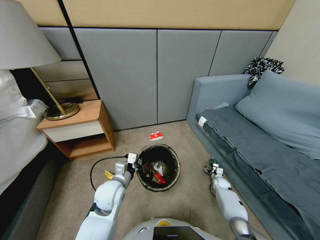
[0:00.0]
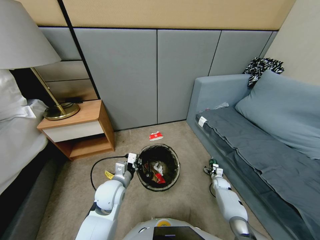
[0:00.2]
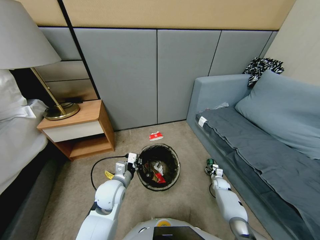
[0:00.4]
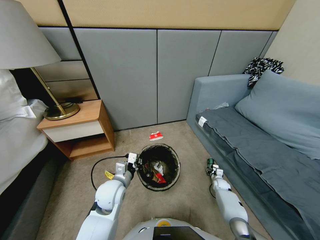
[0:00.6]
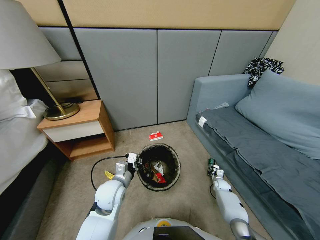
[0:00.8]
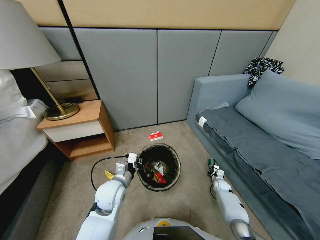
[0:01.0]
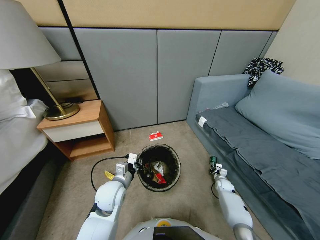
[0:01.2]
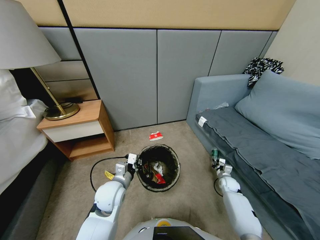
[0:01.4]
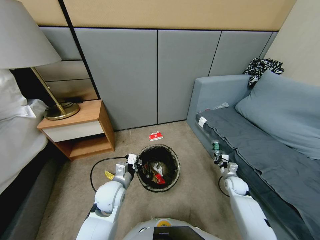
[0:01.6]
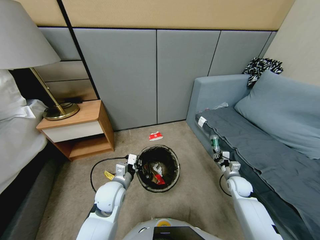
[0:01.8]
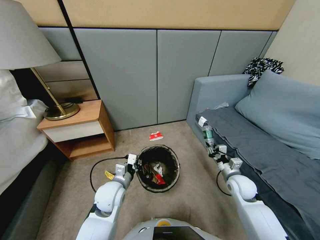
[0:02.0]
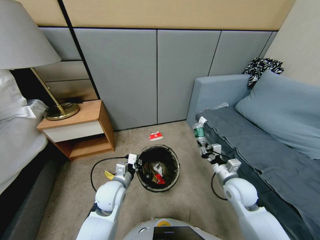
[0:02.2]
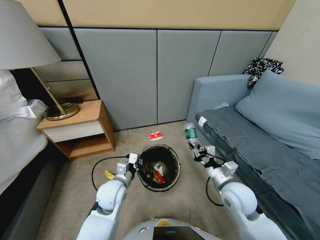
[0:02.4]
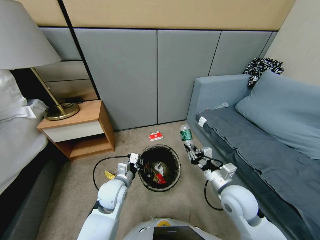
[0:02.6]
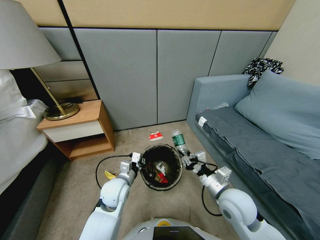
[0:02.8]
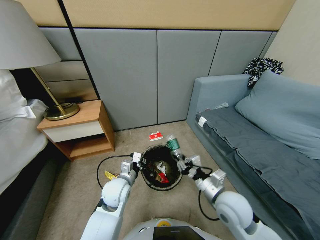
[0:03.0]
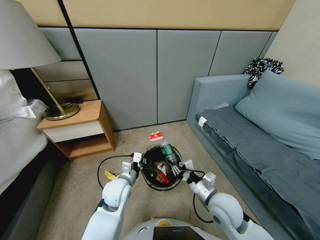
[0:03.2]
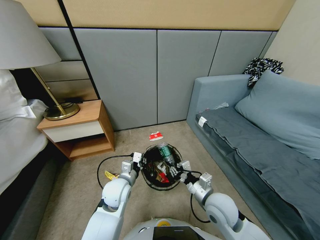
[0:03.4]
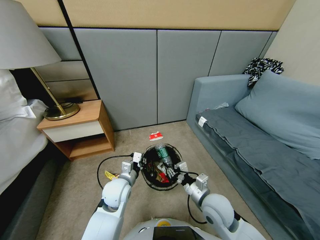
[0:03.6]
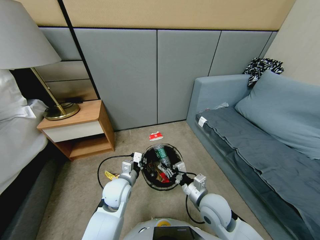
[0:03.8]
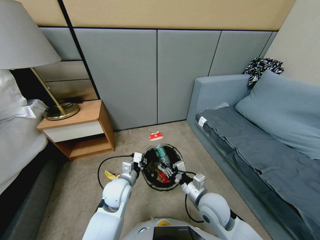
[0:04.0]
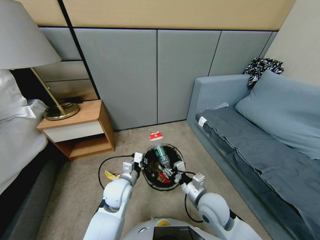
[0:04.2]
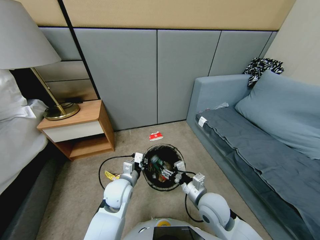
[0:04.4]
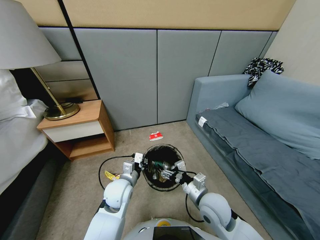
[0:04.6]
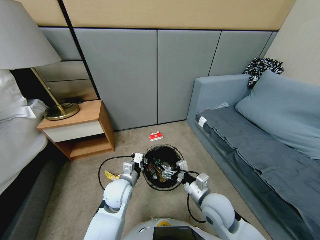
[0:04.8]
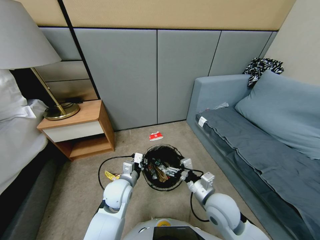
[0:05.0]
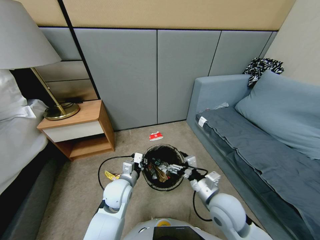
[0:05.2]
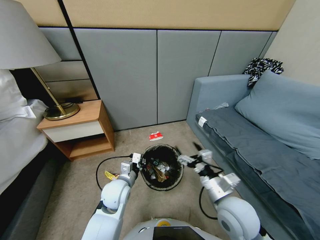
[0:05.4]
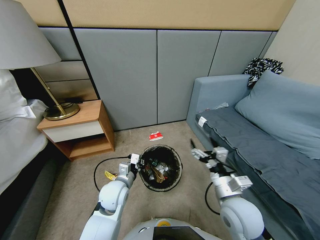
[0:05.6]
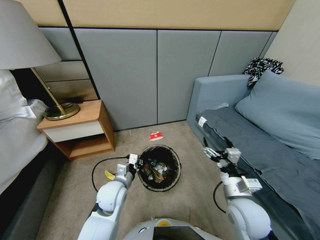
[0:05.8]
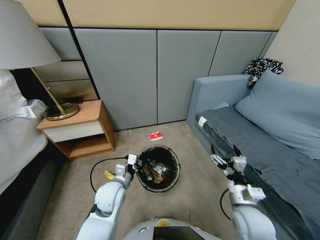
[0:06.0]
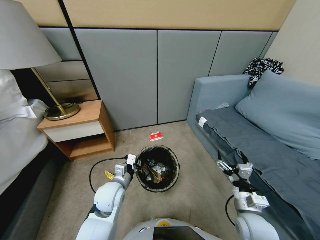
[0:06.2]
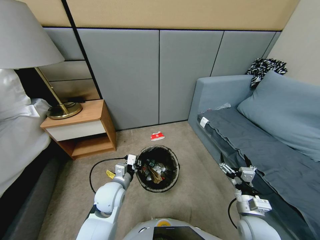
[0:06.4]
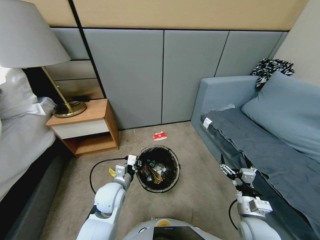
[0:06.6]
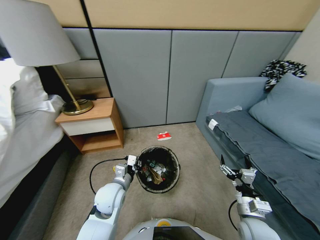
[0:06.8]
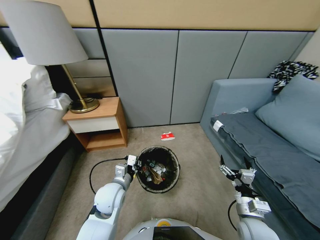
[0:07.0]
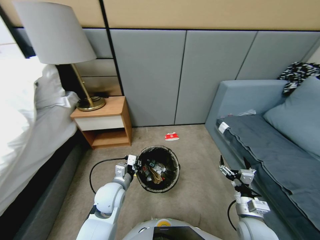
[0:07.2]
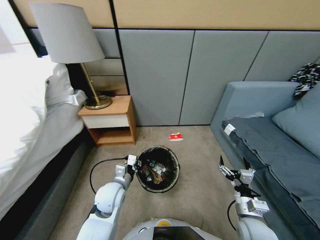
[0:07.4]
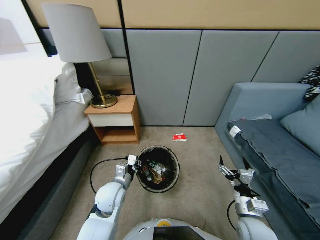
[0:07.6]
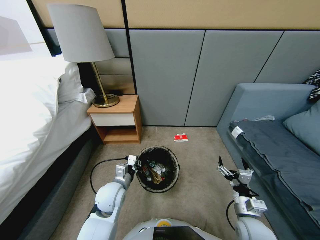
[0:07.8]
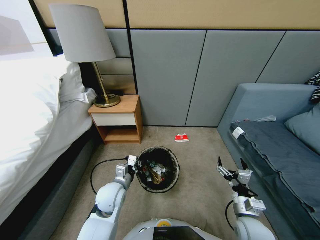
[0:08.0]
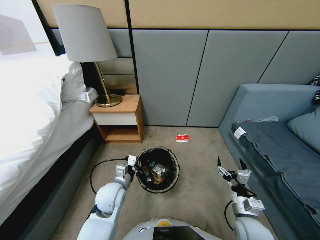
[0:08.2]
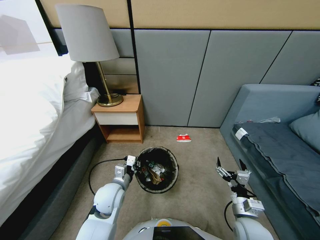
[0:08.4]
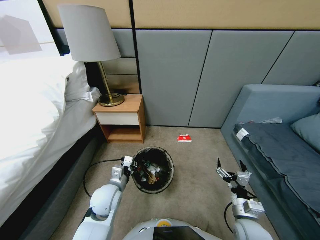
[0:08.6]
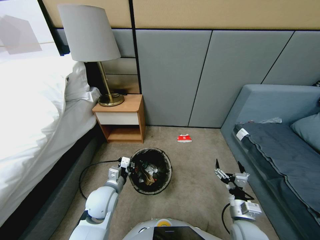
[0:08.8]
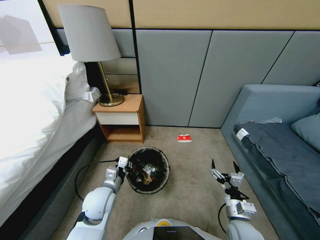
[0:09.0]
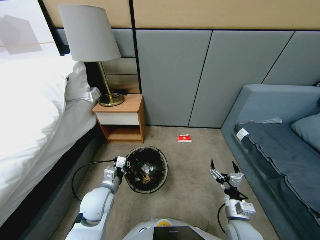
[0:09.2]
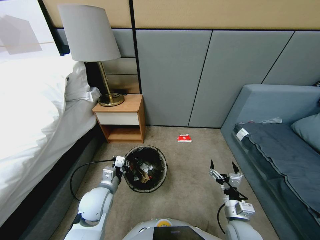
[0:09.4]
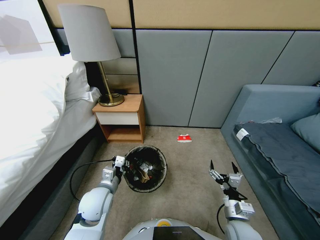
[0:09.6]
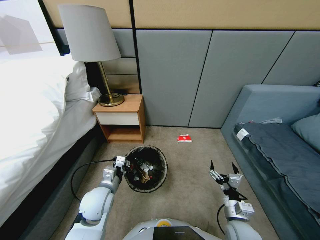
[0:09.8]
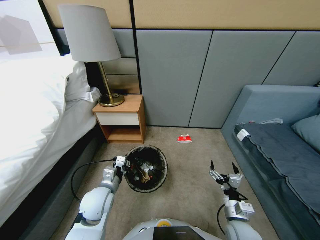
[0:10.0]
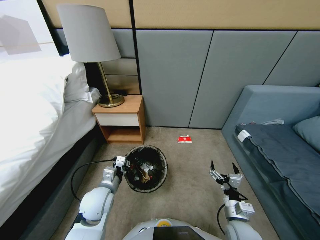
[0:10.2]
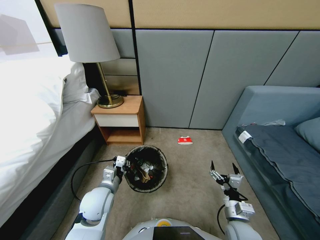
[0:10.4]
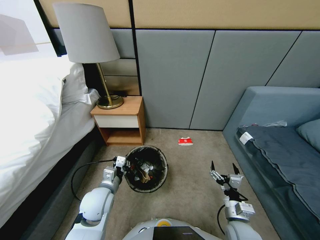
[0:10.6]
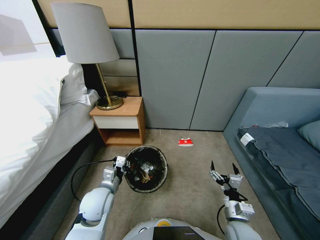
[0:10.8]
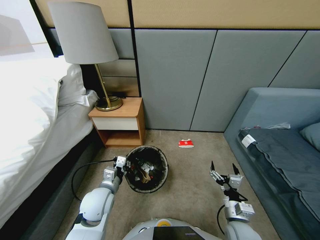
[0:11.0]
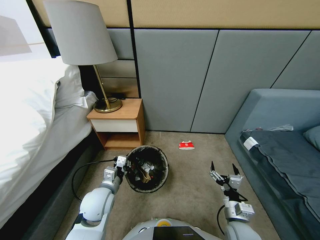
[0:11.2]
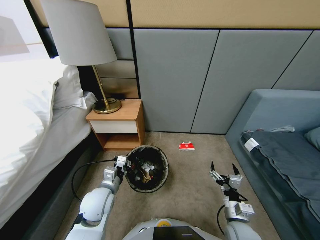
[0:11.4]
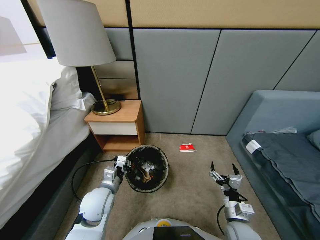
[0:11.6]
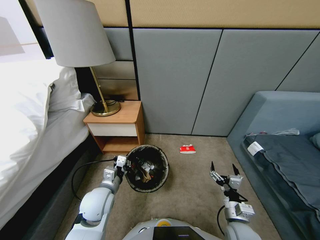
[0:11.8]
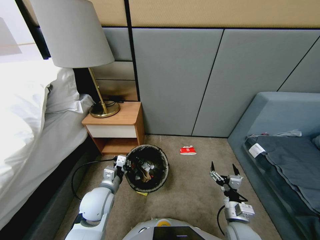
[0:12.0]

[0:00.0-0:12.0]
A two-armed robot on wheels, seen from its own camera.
Task of the whole recording: Pick up the trash bin, then pick up the garbage from the floor and place it into the trash bin.
0:00.0 to 0:01.6: The right gripper is displaced upward by approximately 10 cm, and closes its fingers.
0:01.6 to 0:03.0: The right gripper shifts about 30 cm upward, to the left and backward.
0:03.0 to 0:04.4: The right gripper opens its fingers.
0:04.4 to 0:06.0: The right gripper is displaced to the right and backward by roughly 10 cm.
0:09.0 to 0:10.4: Both grippers stay put.

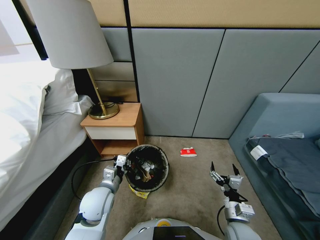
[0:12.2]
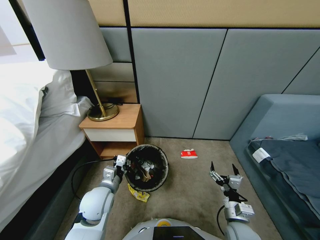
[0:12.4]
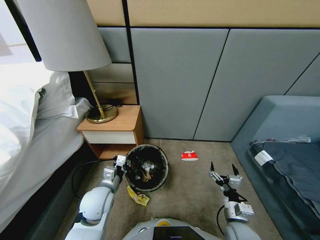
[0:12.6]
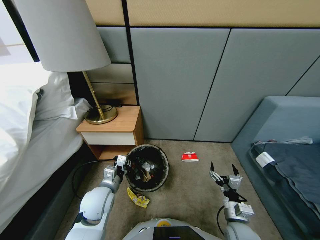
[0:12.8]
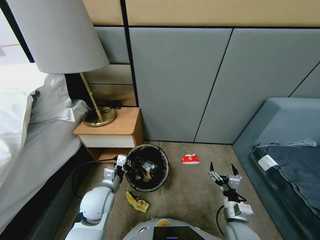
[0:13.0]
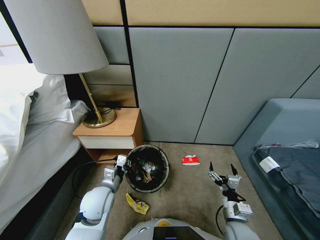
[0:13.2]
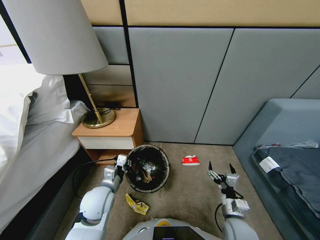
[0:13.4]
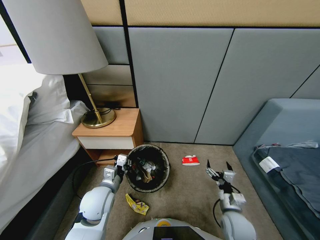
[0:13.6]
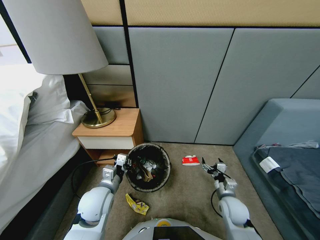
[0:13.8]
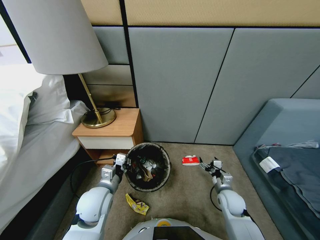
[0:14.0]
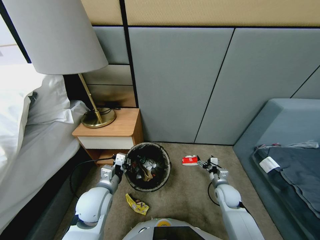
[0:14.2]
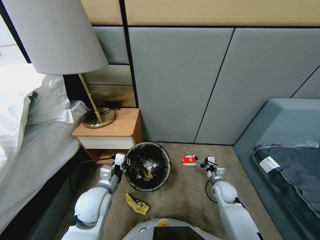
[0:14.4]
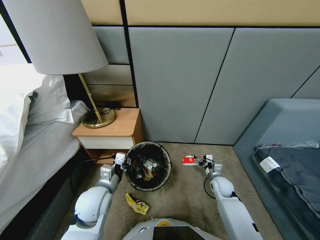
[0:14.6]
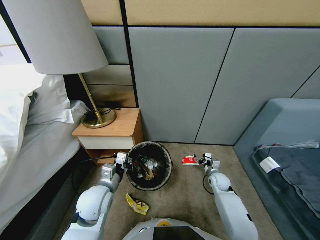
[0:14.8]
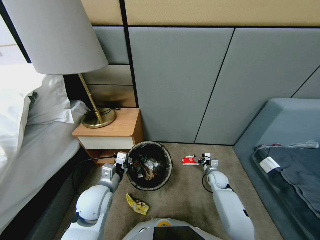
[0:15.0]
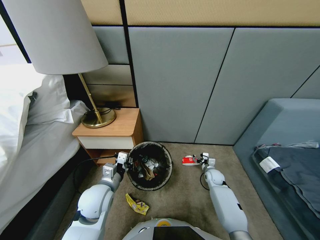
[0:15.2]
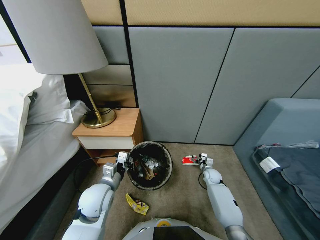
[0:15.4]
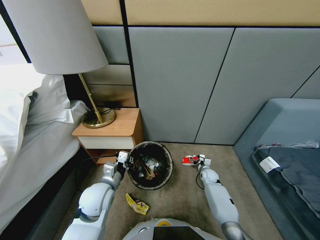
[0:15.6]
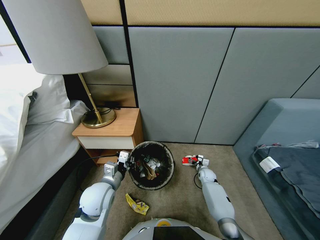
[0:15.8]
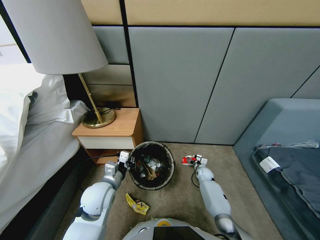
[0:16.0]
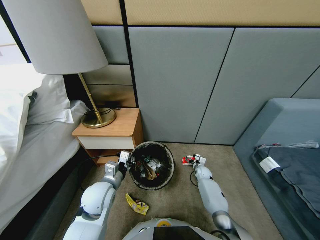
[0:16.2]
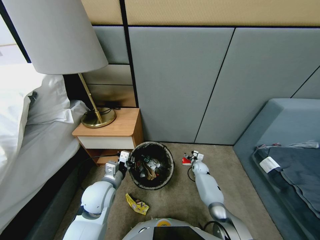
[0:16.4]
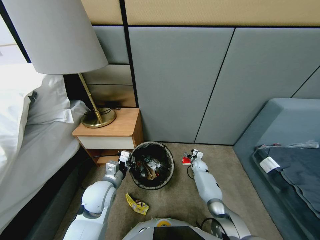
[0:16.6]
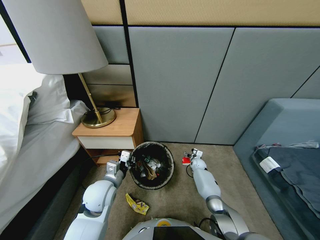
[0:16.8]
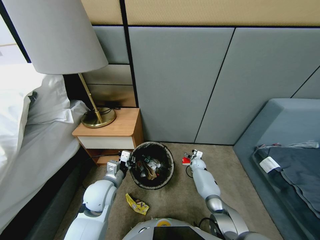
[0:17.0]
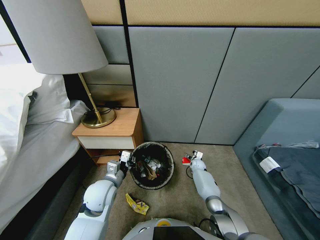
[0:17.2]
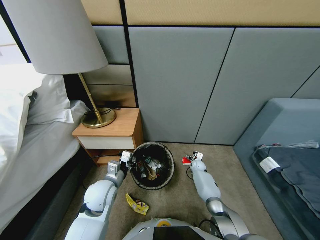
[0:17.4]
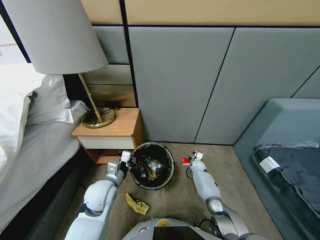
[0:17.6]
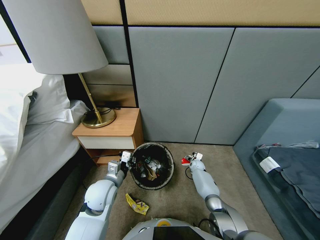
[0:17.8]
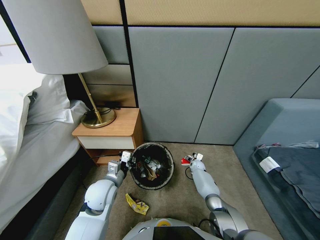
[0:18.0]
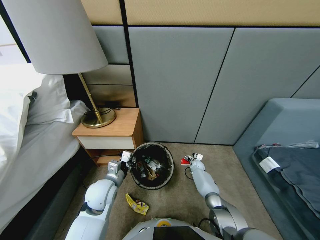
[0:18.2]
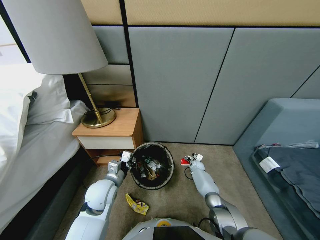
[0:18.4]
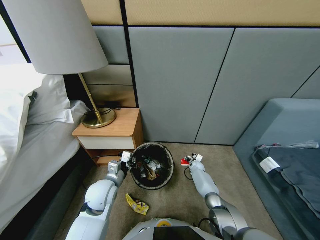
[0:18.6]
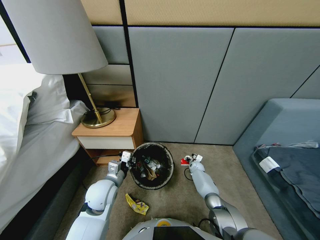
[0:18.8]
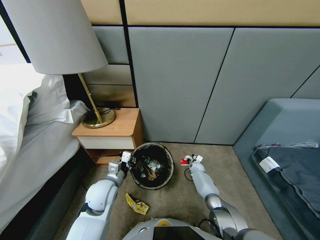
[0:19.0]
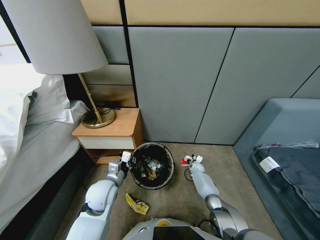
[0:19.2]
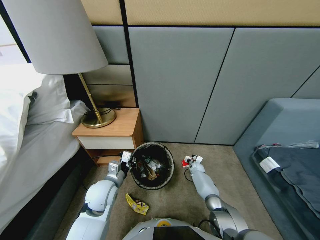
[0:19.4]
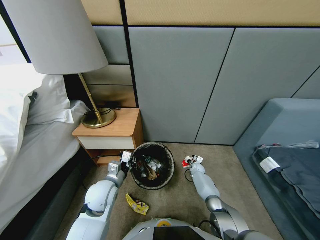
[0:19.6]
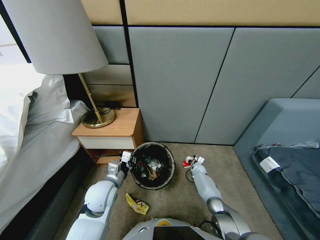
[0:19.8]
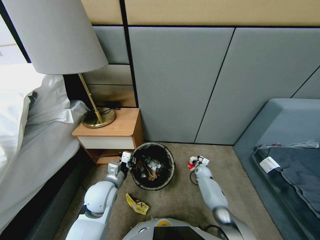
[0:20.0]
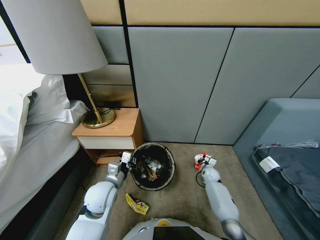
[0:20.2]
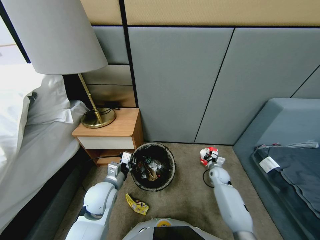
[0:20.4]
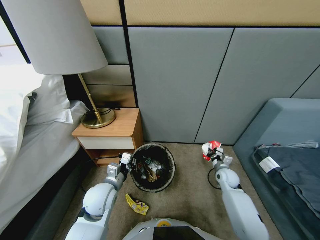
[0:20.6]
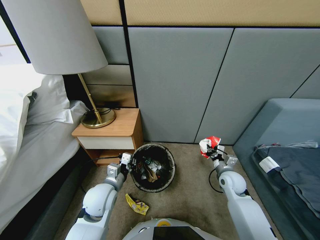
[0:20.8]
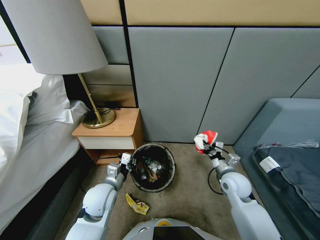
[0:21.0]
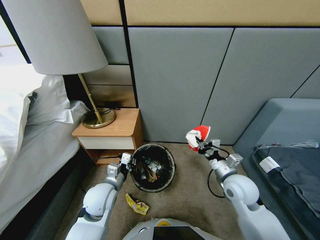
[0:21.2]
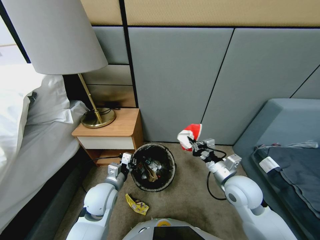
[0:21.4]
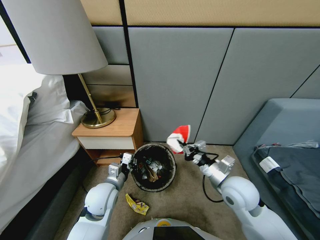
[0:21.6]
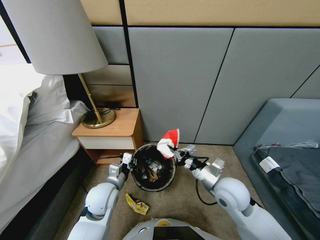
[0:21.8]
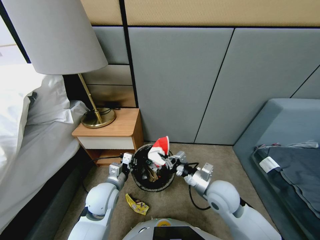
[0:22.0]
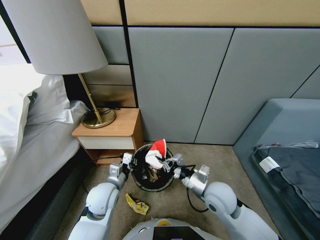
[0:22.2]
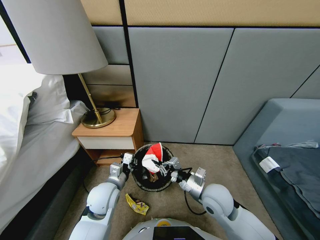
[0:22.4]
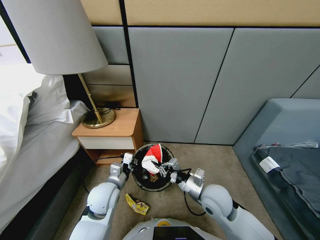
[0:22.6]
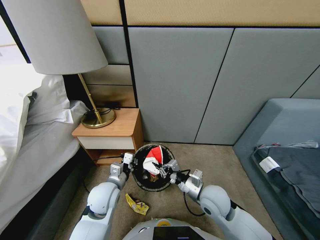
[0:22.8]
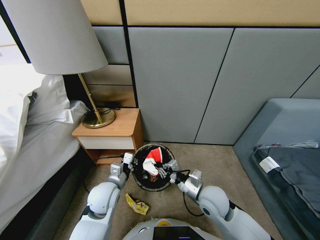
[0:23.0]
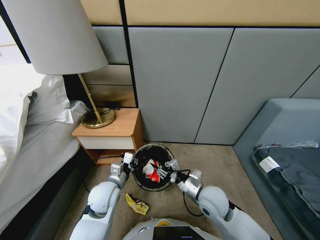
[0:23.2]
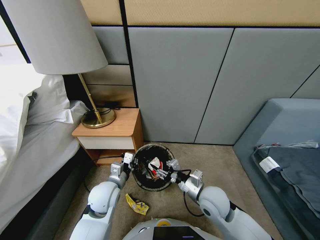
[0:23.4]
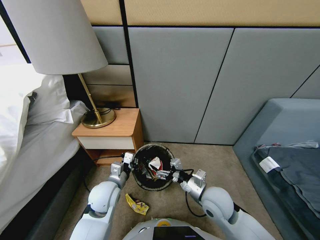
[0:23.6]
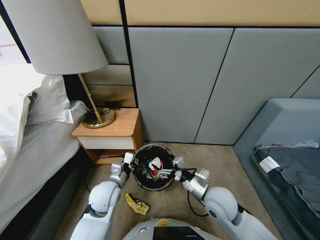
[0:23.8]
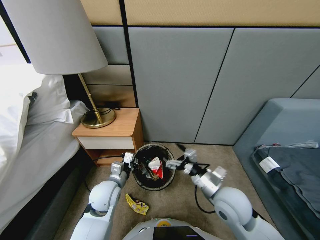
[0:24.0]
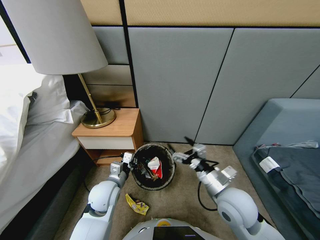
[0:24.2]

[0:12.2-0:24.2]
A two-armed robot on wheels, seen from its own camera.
Task of the whole recording: Pick up the trash bin, then pick up the garbage from the floor and place it into the trash bin.
0:12.2 to 0:13.8: The right gripper shifts roughly 10 cm forward.
0:13.8 to 0:15.2: The right gripper moves forward and downward, about 20 cm.
0:15.2 to 0:16.6: The right gripper goes approximately 10 cm forward.
0:16.6 to 0:18.2: There are only small adjustments of the grippers.
0:18.2 to 0:19.8: The right gripper closes.
0:19.8 to 0:21.2: The right gripper is displaced upward and backward by about 35 cm.
0:21.2 to 0:22.6: The right gripper moves to the left, roughly 10 cm.
0:22.6 to 0:24.2: The right gripper travels upward by some 5 cm, and opens up.
